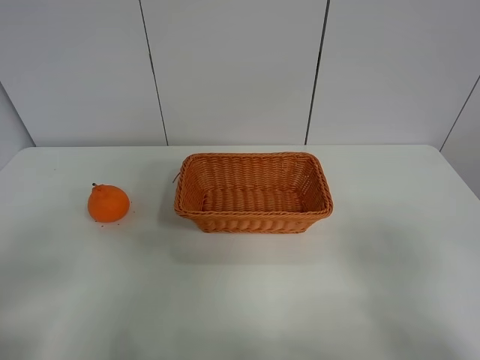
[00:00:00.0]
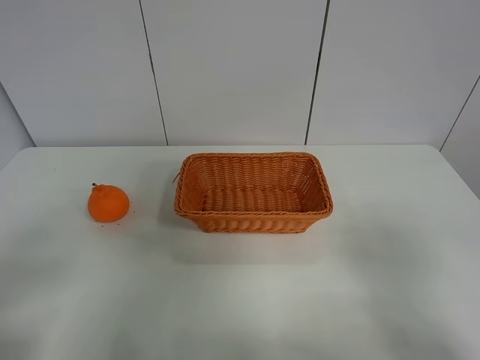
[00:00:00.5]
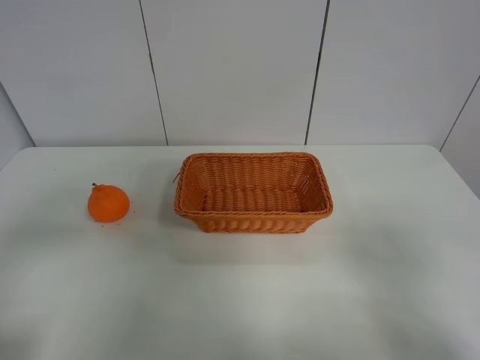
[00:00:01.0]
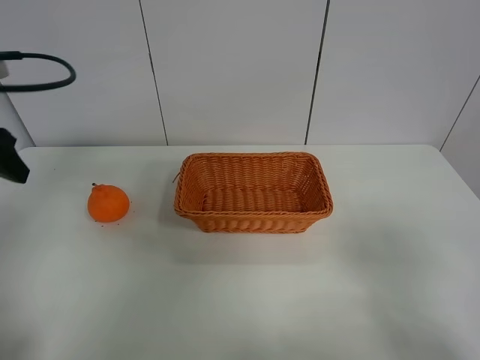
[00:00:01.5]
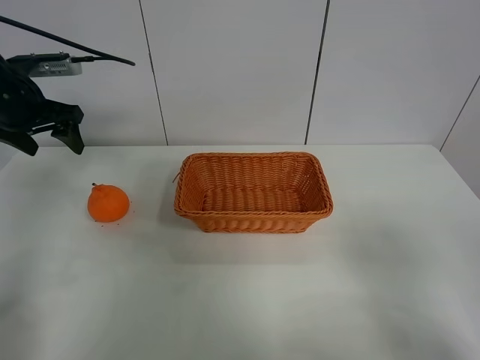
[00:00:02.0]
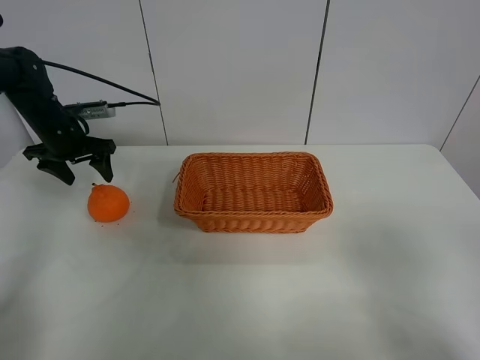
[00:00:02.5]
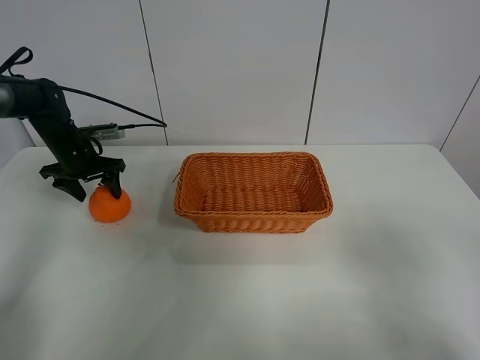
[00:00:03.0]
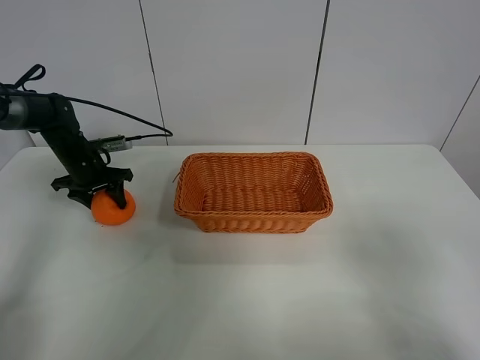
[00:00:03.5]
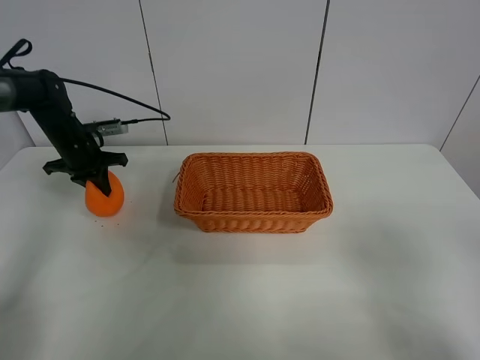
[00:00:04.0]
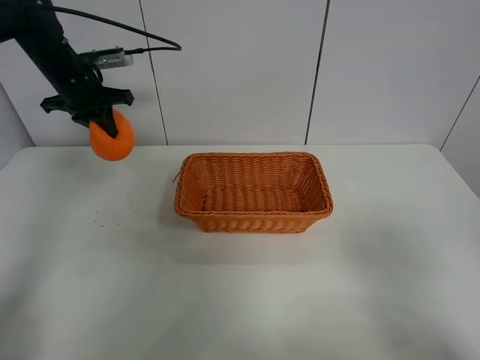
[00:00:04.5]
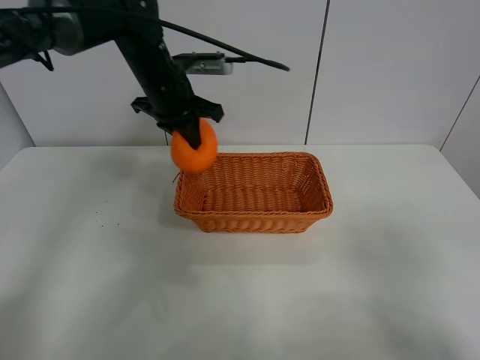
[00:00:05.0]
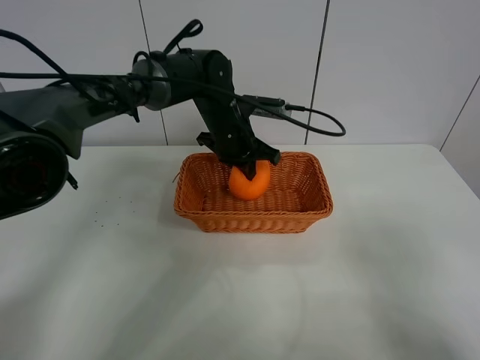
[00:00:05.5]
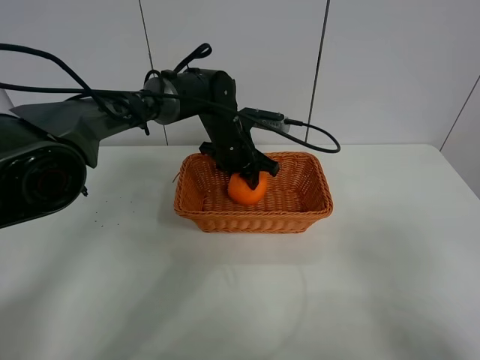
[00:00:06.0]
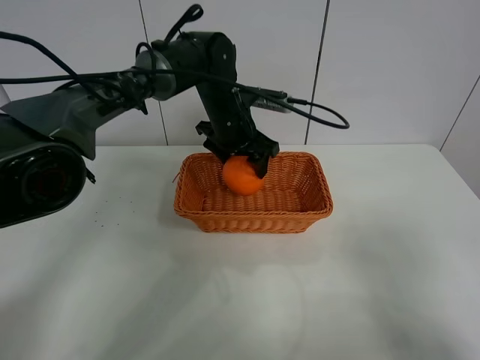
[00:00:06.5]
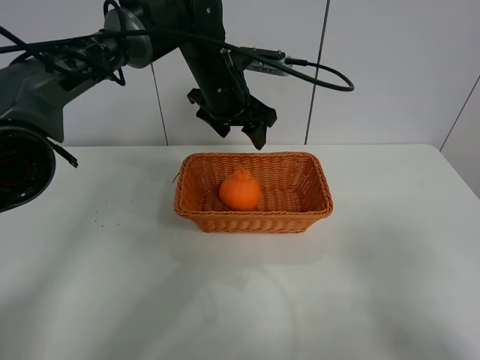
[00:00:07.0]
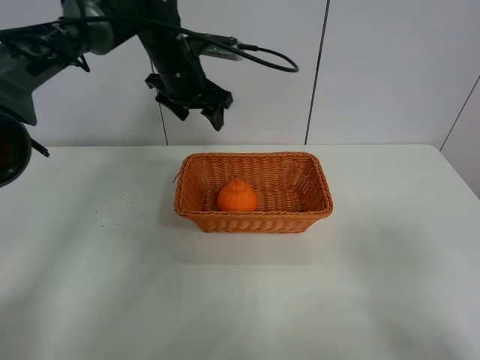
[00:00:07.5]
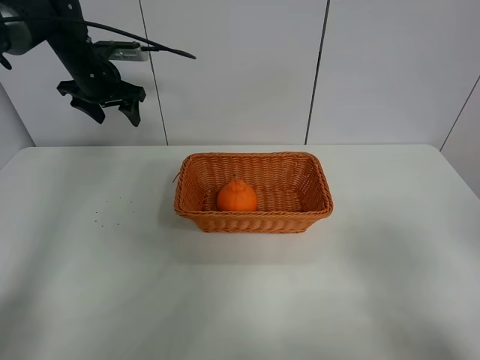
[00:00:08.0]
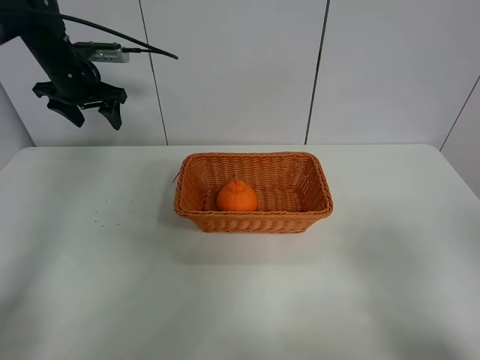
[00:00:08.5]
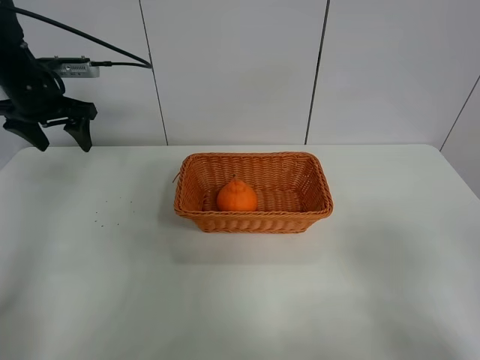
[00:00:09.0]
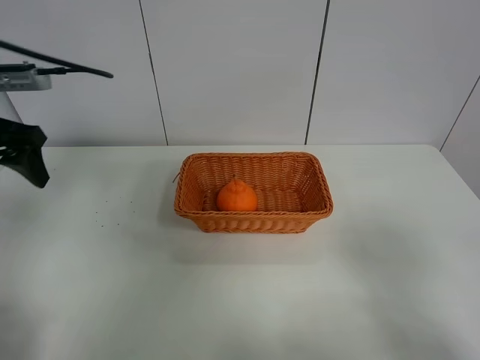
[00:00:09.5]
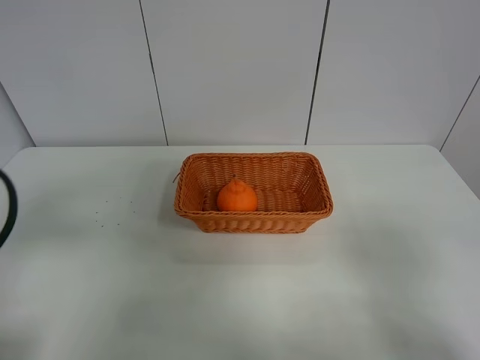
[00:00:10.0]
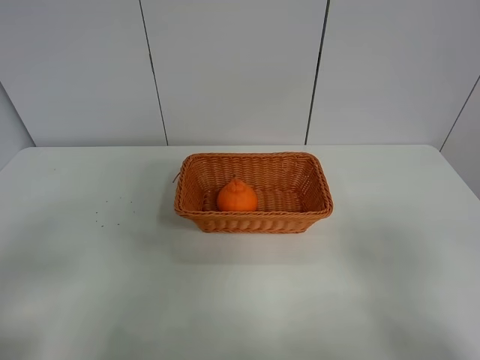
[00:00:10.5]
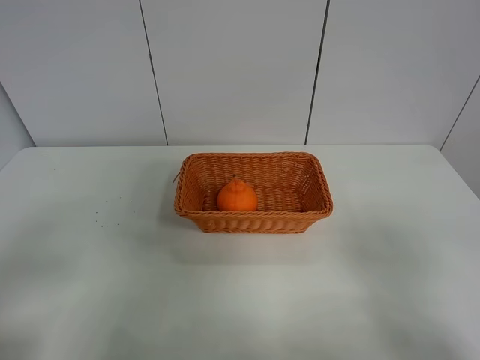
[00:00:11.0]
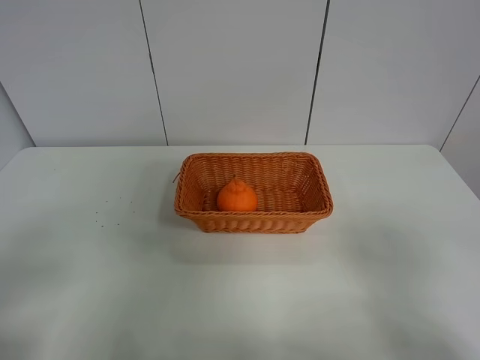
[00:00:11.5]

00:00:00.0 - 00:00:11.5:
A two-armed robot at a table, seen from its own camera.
Task of the whole recording: left gripper grabs oranges and puts them in the basket.
Step, 00:00:00.0 - 00:00:03.5: Grasp the orange with left gripper.
Step, 00:00:04.0 - 00:00:07.5: Place the orange in the basket with left gripper.
00:00:00.0 - 00:00:02.0: The left gripper shifts approximately 40 cm forward.
00:00:02.0 - 00:00:04.0: The left gripper moves downward and forward, about 15 cm, and closes up.
00:00:04.0 - 00:00:06.0: The left gripper heads to the right, covering about 30 cm, and opens.
00:00:06.0 - 00:00:07.5: The left gripper travels upward and to the left by approximately 15 cm, and opens its fingers.
00:00:07.5 - 00:00:09.5: The left gripper travels backward and to the left by about 30 cm.
00:00:09.5 - 00:00:11.5: The left gripper heads backward, covering approximately 25 cm.
